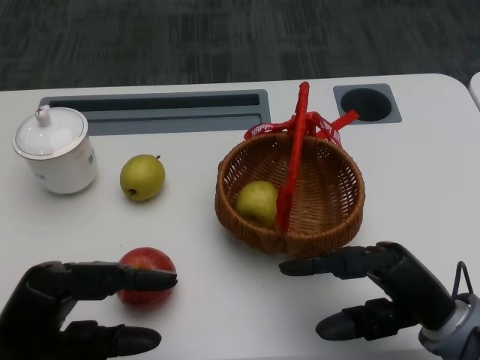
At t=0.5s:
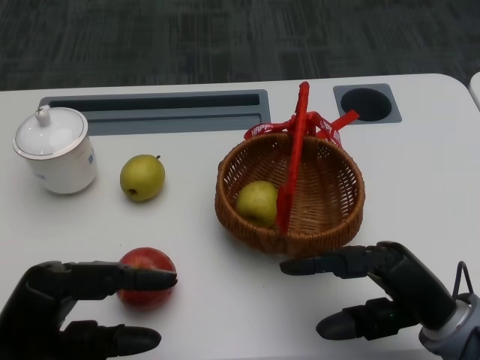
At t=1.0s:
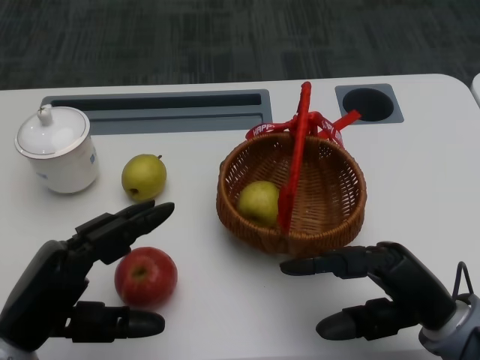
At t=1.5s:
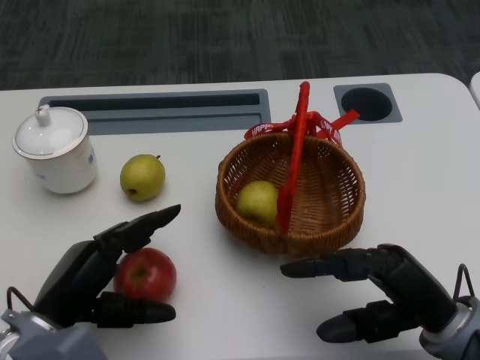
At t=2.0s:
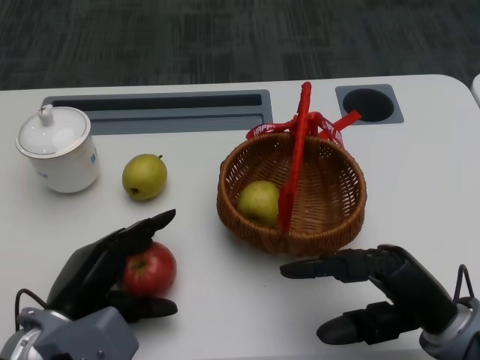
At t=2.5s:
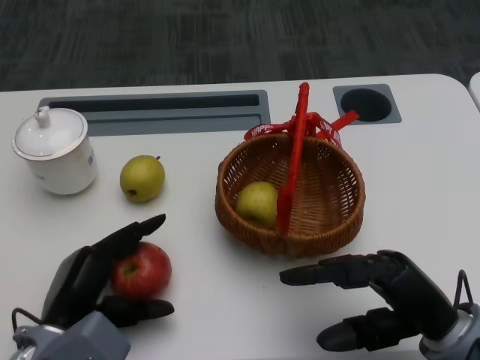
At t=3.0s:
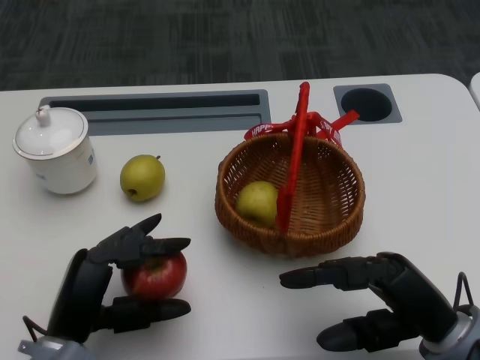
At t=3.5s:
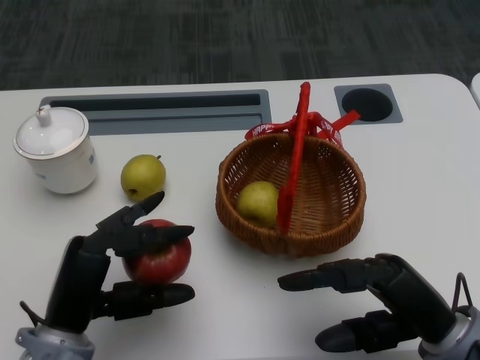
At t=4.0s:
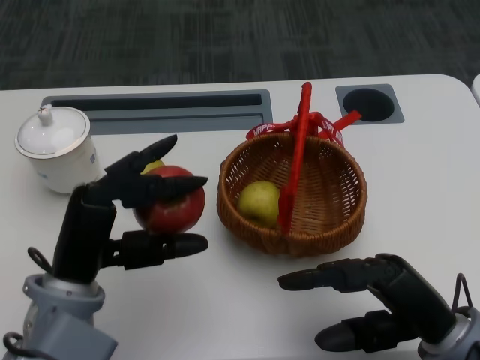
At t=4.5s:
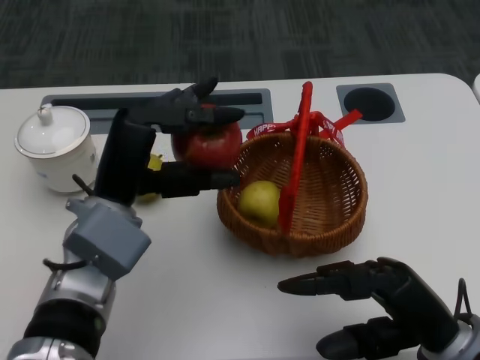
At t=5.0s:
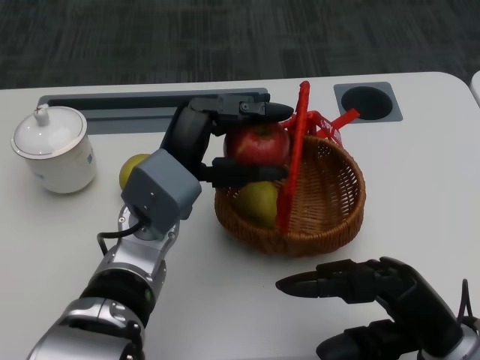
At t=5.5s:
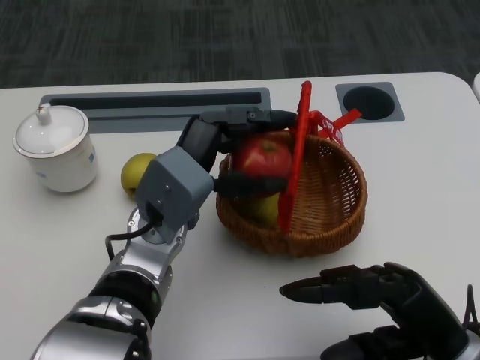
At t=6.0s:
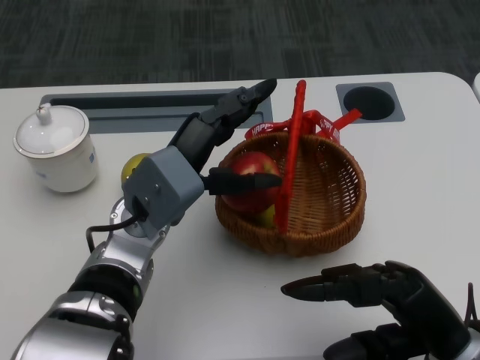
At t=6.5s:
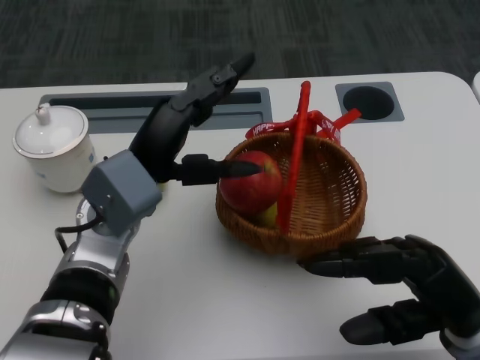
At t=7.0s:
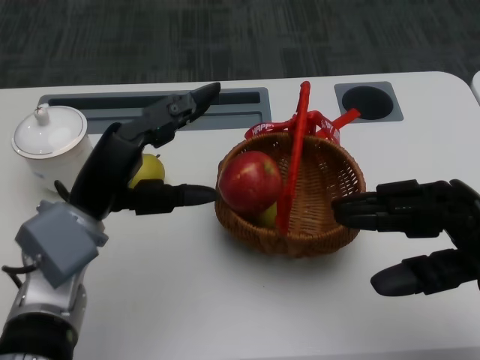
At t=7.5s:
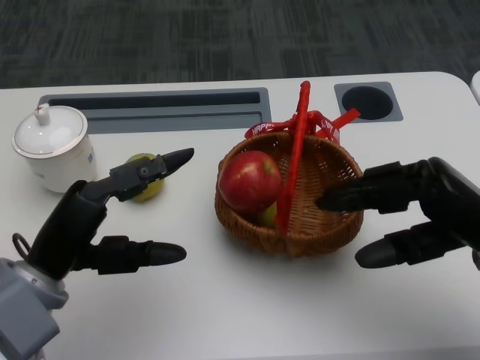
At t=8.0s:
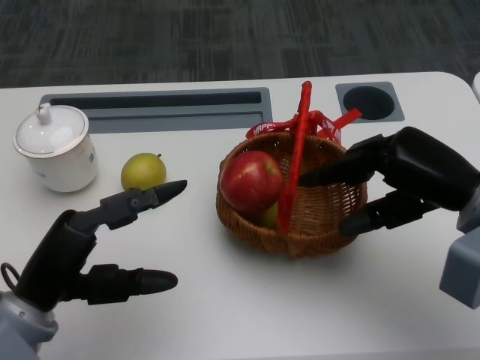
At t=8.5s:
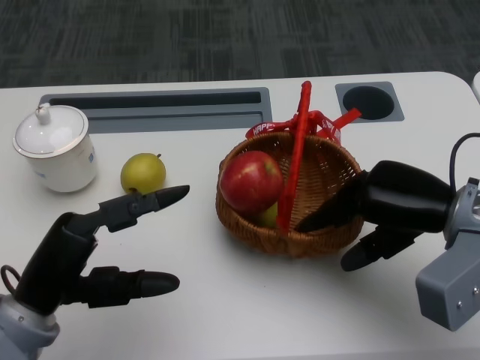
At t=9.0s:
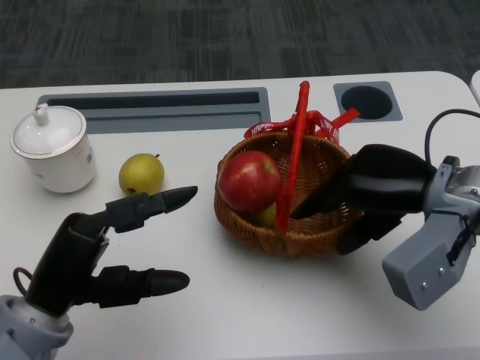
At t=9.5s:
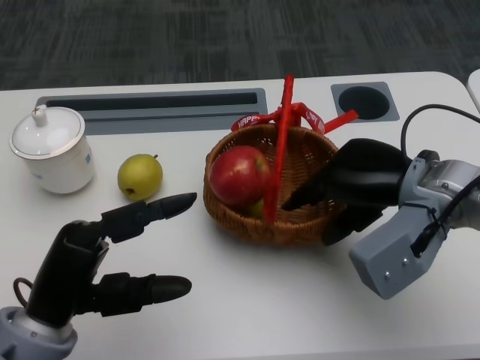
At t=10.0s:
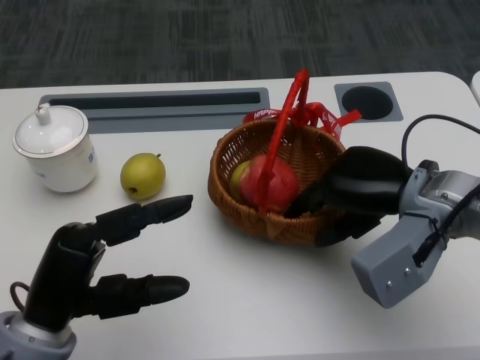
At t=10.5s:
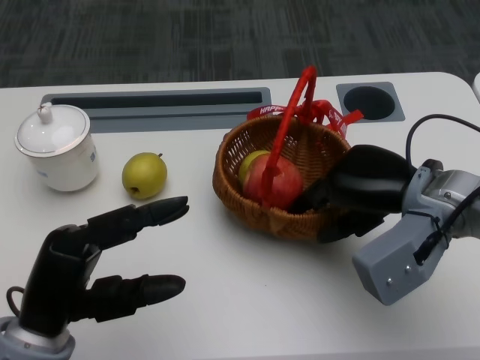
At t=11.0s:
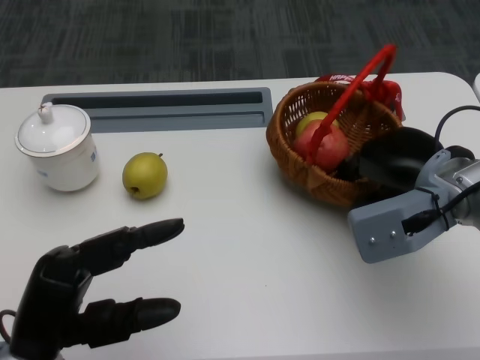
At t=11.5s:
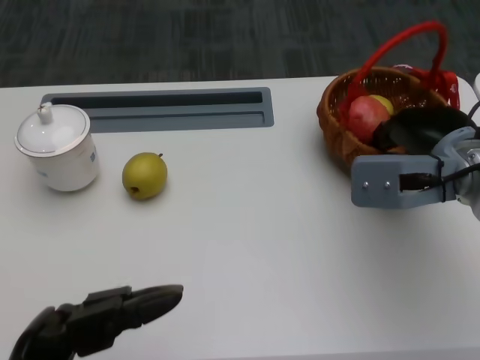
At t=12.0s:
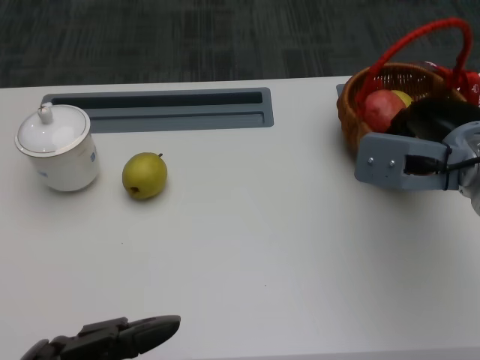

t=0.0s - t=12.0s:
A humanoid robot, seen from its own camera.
Step, t=0.5s - t=1.5s: Grasp the apple with the left gripper.
Step, t=2.0s - t=4.5s: Place the apple into the basket with the left gripper.
Step, t=5.0s - t=8.0s: Grasp the basket with the right gripper.
Step, t=8.5s - t=10.0s: Move the basket to the front of the table with the right gripper.
t=2.0s - t=4.0s: The left hand heads upward, covering some 5 cm.
t=4.0s - t=6.0s: The left hand goes roughly 10 cm forward and to the right.
t=6.0s - t=8.0s: The left hand moves to the left and backward, roughly 15 cm. The right hand travels forward and upward by roughly 15 cm.
t=8.0s - t=10.0s: The right hand shifts by about 5 cm.
t=10.0s - t=12.0s: The left hand goes some 10 cm backward.

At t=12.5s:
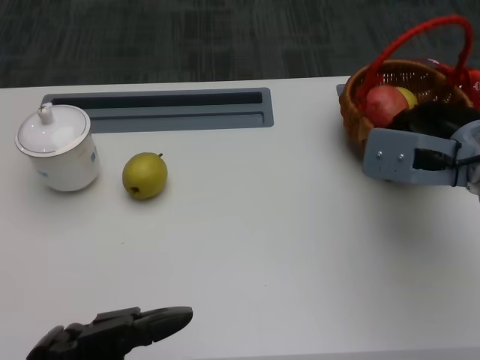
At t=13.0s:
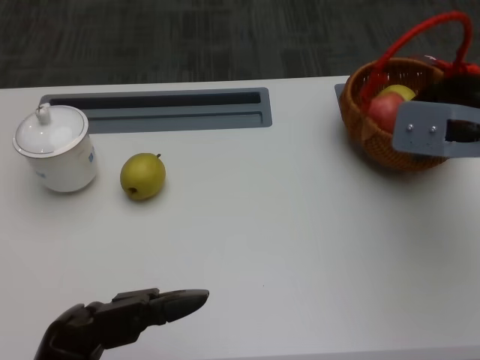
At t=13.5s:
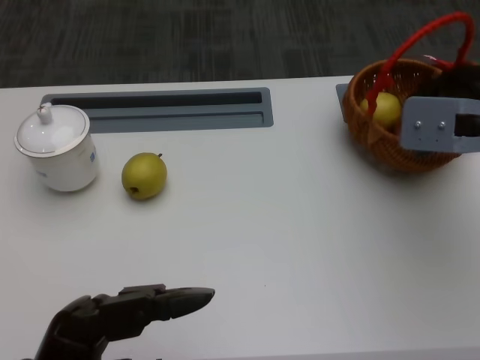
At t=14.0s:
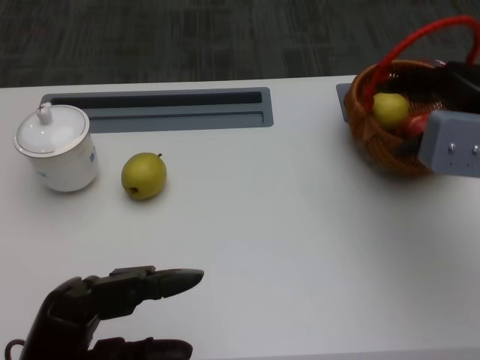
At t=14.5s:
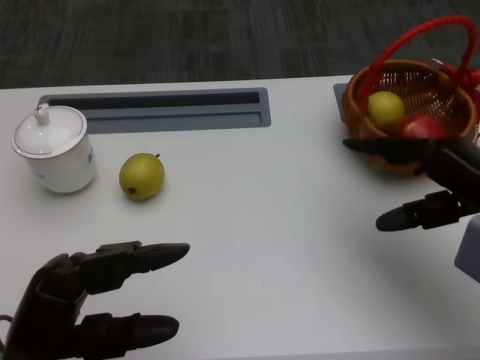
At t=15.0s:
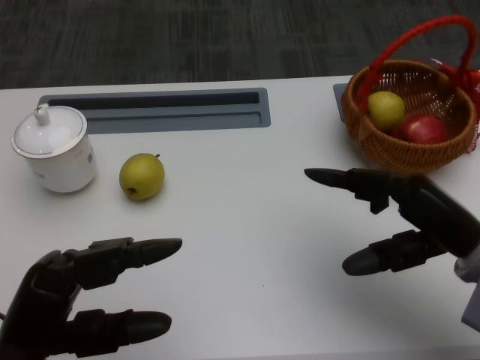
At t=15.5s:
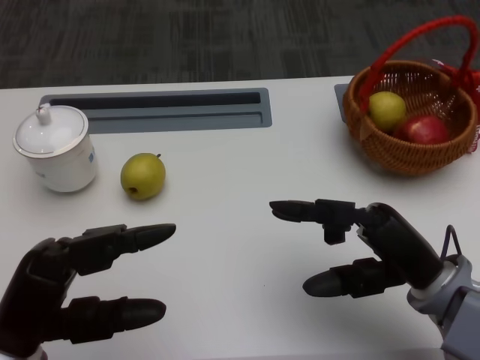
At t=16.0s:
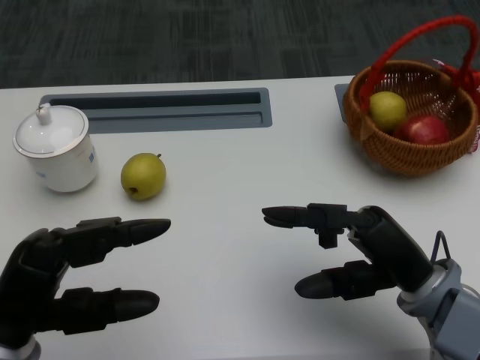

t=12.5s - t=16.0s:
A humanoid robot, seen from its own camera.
t=12.5s - t=14.5s: The right hand ends up approximately 5 cm from where it was. Meanwhile the left hand goes approximately 5 cm forward.
t=14.5s - t=16.0s: The right hand is displaced to the left, downward and backward by about 10 cm.
